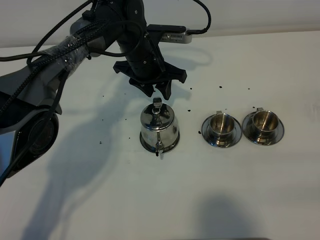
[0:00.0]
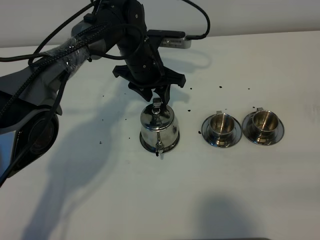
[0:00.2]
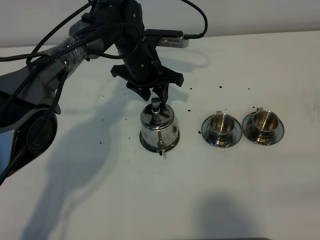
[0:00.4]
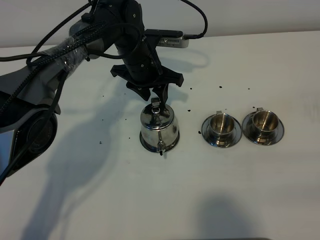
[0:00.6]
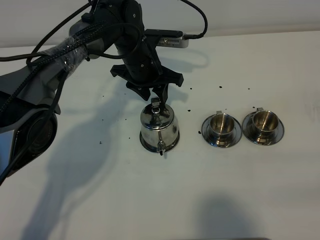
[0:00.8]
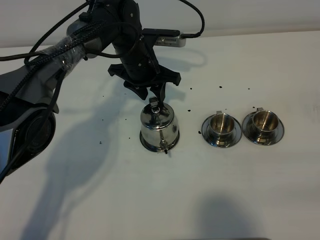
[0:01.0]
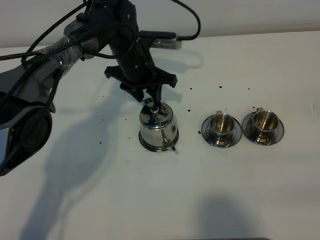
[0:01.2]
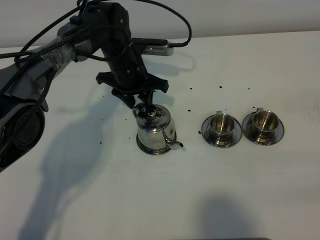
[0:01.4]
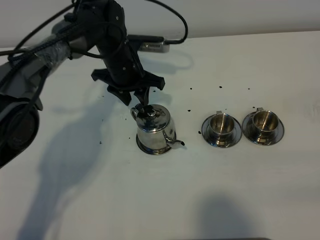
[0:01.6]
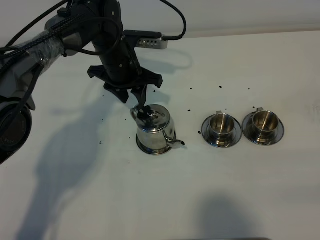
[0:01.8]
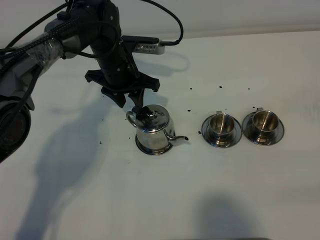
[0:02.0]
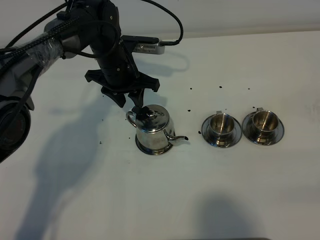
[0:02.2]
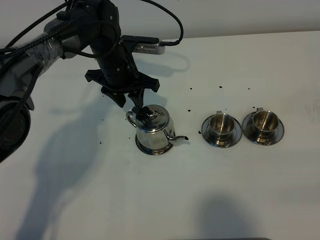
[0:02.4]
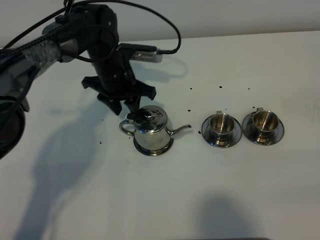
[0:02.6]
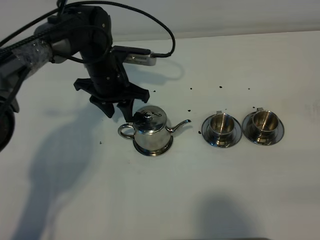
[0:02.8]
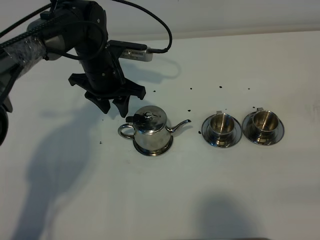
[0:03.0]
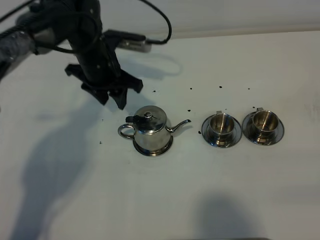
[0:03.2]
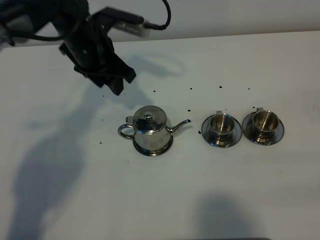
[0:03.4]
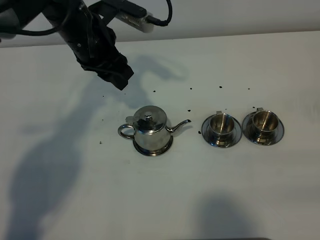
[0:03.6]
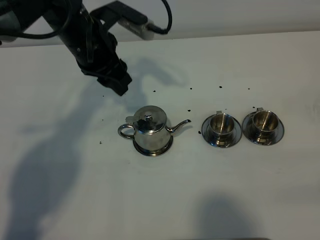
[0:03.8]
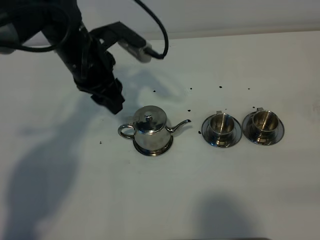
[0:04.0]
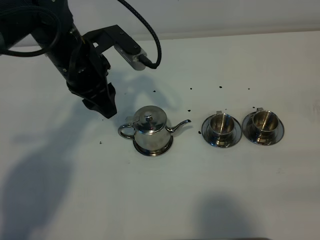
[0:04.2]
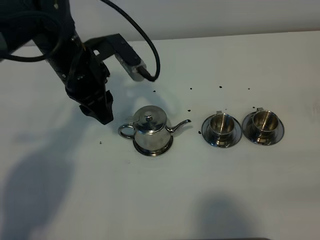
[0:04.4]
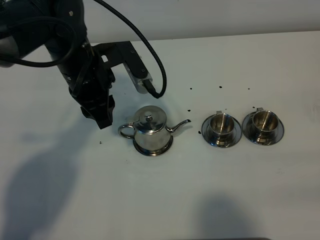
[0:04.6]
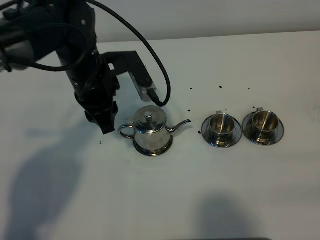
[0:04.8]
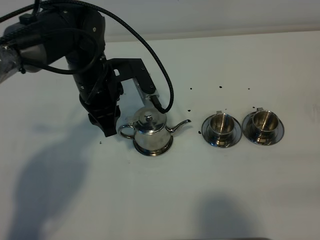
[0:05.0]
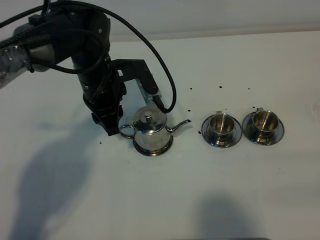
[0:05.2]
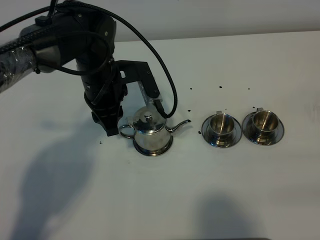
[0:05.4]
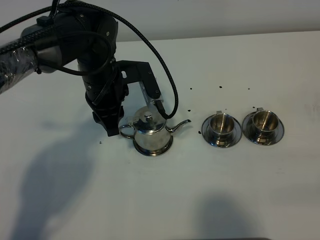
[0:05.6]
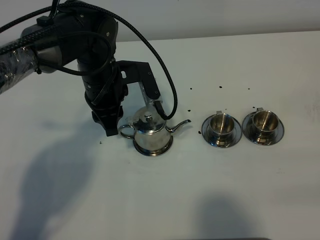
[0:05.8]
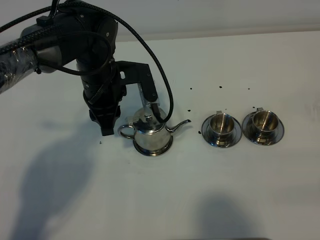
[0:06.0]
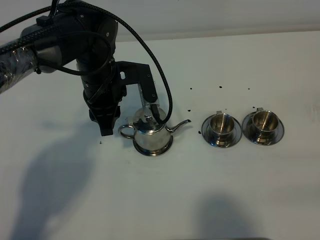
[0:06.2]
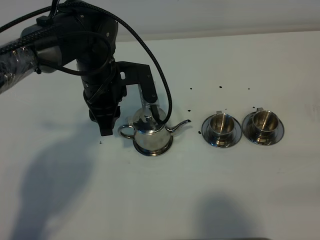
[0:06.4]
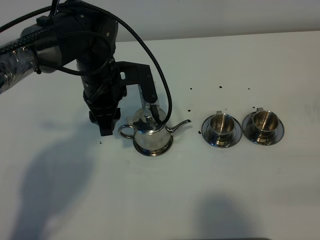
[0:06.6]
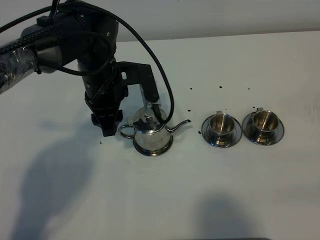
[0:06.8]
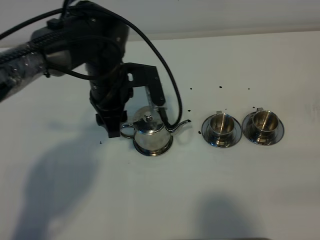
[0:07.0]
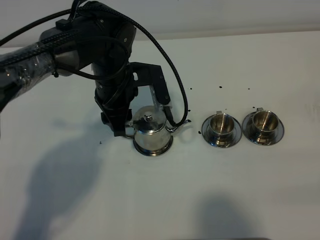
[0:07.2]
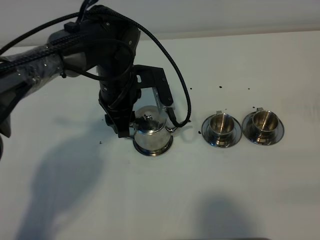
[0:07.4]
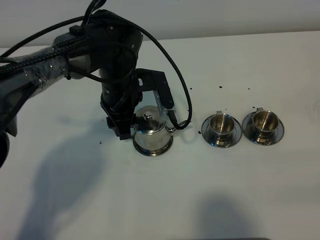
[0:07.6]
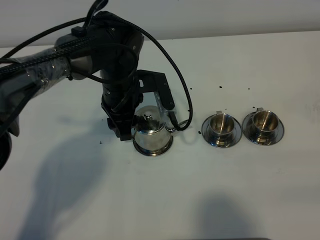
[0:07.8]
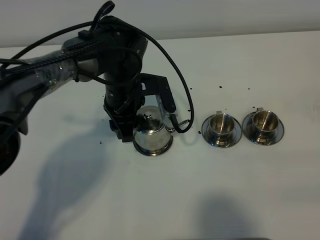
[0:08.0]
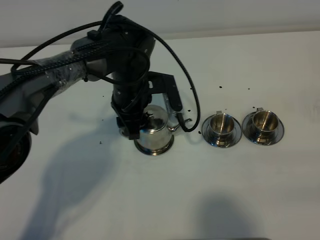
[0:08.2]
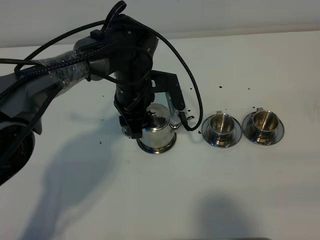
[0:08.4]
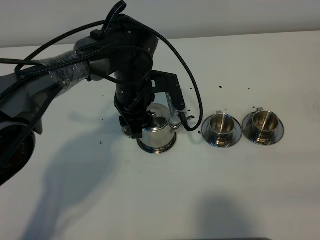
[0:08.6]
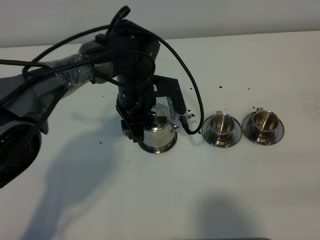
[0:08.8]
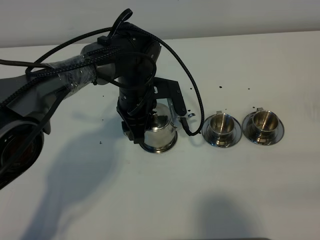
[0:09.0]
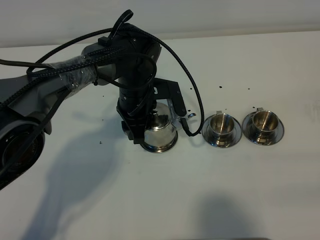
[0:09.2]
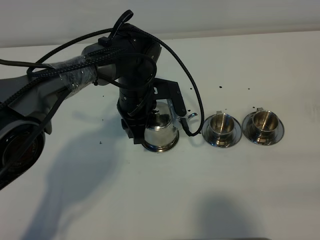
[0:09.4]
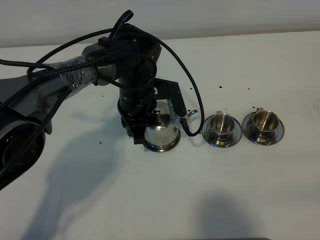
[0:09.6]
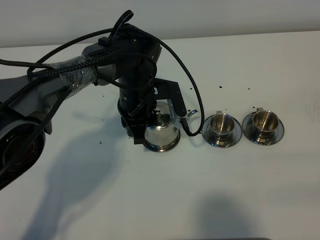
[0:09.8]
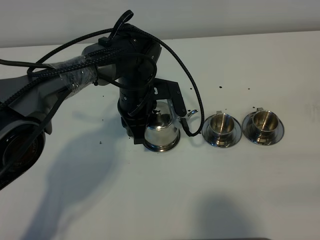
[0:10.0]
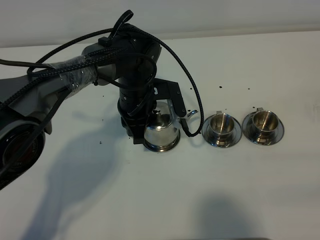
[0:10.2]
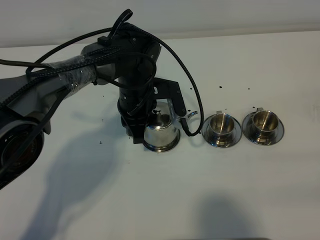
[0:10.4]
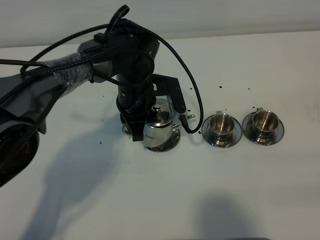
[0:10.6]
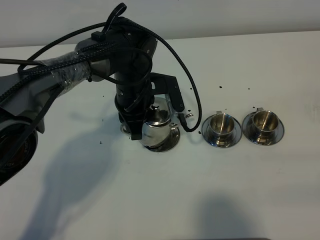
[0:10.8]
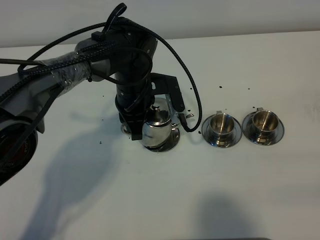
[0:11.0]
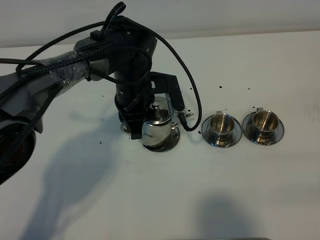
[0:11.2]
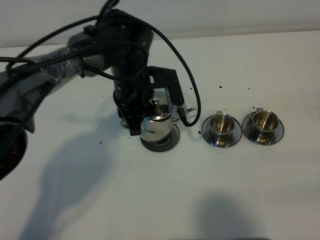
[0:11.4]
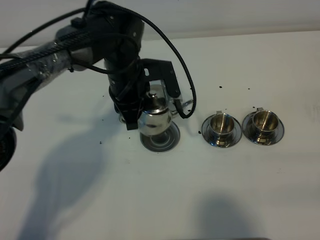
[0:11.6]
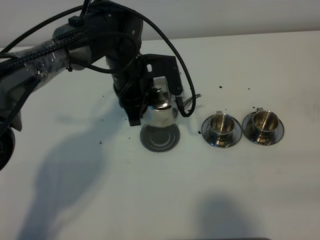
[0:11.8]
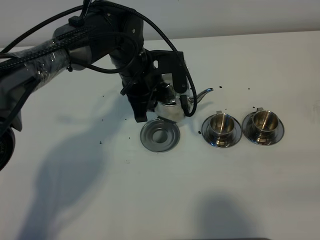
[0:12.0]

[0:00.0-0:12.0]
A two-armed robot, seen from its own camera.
Task of the whole recording: grasp the stainless steel teapot and pour the tea into the two stainless steel teacups one by one, put the stainless steel teapot back in its original place.
Step, 0:00.0 to 0:11.2: Pick up the teapot with the left gripper.
0:00.0 to 0:01.6: The grippers stay close to where they were, moving slightly.
0:01.6 to 0:03.0: There are only small adjustments of the grippers.
0:03.0 to 0:04.4: The left gripper heads upward and backward, covering some 10 cm.
0:04.4 to 0:06.0: The left gripper ends up approximately 5 cm from where it was.
0:06.0 to 0:07.6: The left gripper opens up.
0:07.6 to 0:09.0: The grippers make only small movements.
0:09.0 to 0:10.4: The left gripper closes up.
0:10.4 to 0:12.0: The left gripper changes place by some 5 cm.

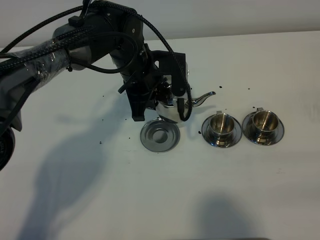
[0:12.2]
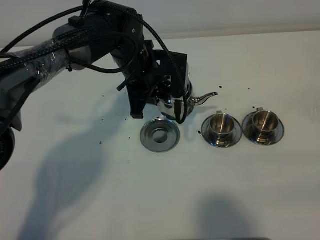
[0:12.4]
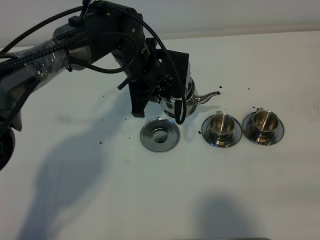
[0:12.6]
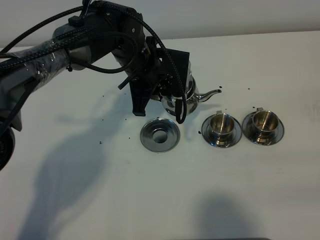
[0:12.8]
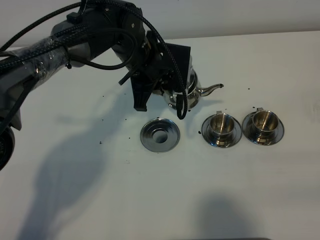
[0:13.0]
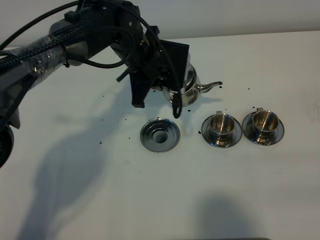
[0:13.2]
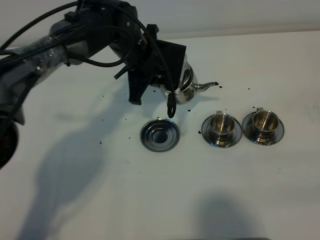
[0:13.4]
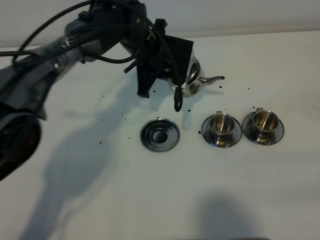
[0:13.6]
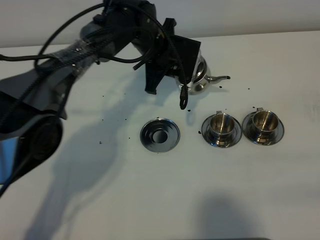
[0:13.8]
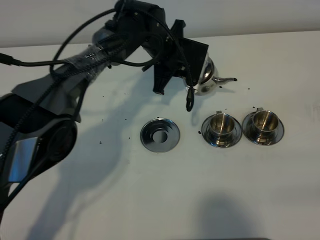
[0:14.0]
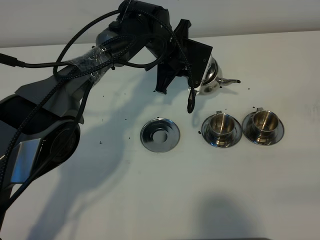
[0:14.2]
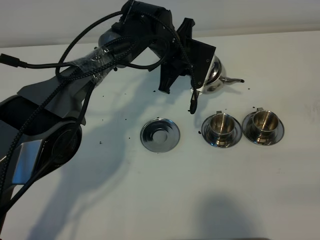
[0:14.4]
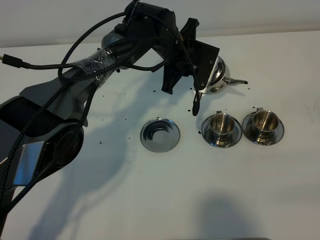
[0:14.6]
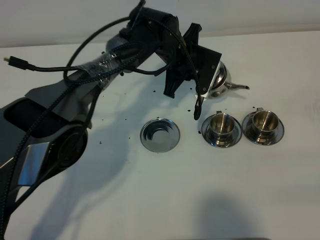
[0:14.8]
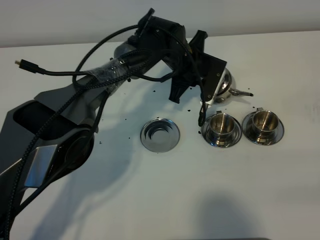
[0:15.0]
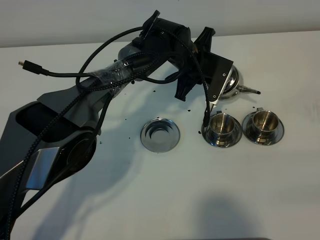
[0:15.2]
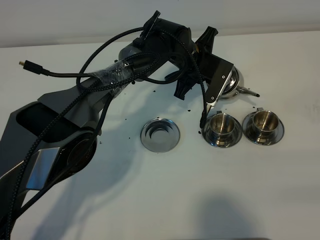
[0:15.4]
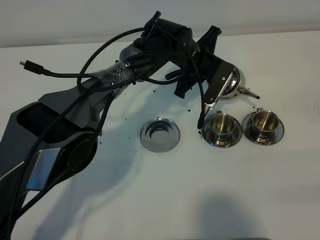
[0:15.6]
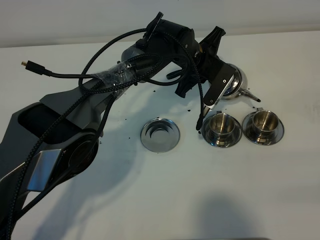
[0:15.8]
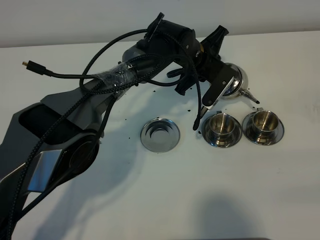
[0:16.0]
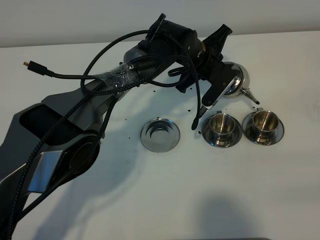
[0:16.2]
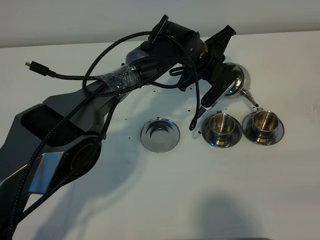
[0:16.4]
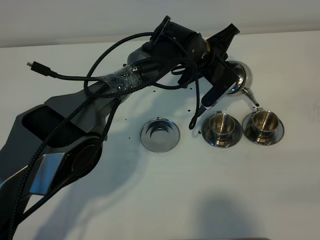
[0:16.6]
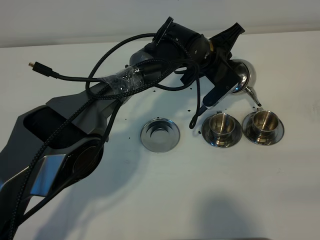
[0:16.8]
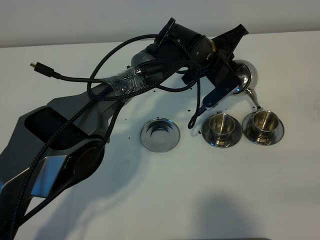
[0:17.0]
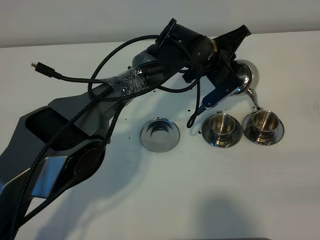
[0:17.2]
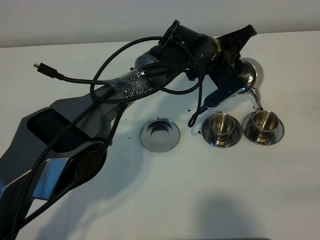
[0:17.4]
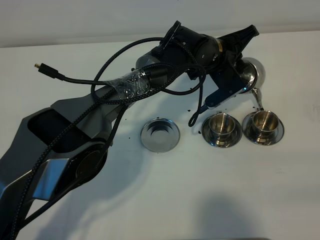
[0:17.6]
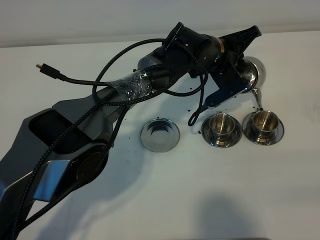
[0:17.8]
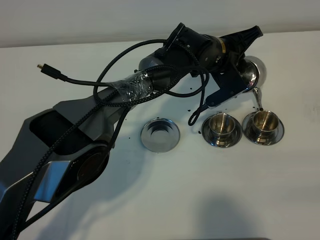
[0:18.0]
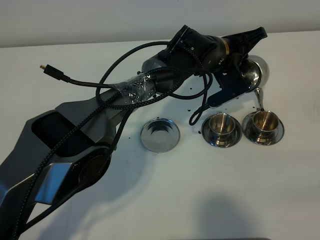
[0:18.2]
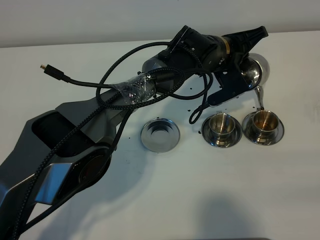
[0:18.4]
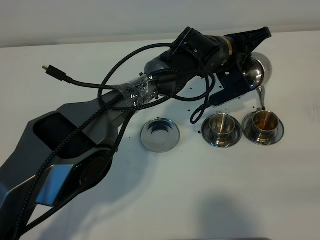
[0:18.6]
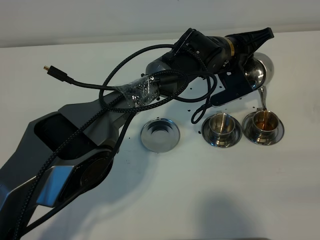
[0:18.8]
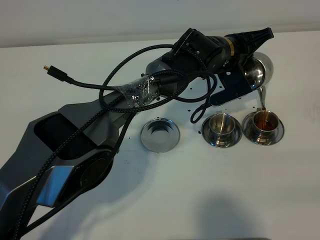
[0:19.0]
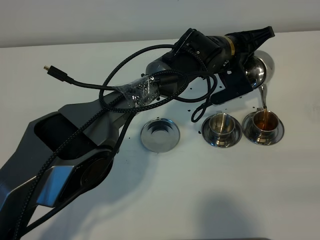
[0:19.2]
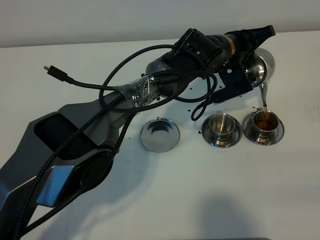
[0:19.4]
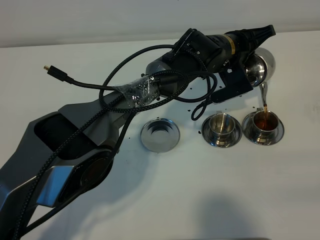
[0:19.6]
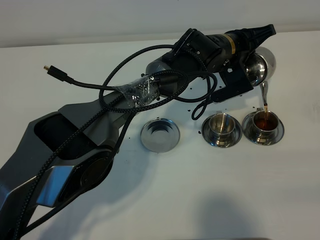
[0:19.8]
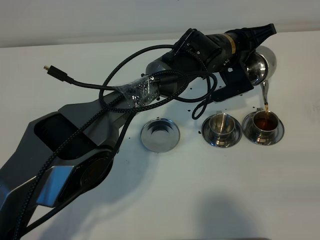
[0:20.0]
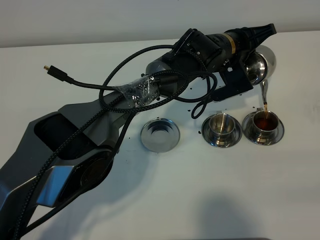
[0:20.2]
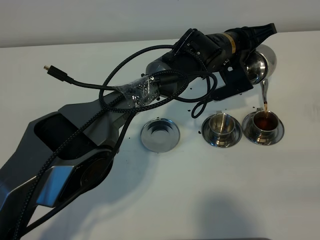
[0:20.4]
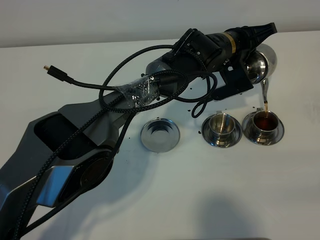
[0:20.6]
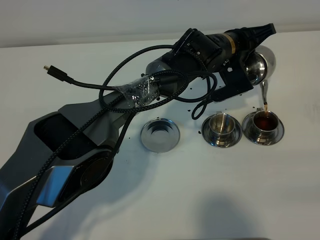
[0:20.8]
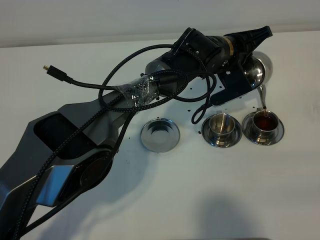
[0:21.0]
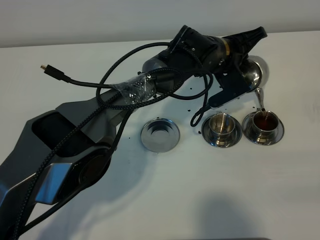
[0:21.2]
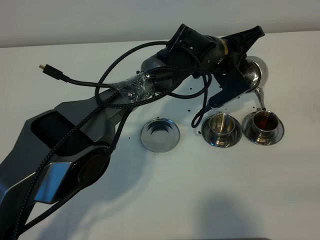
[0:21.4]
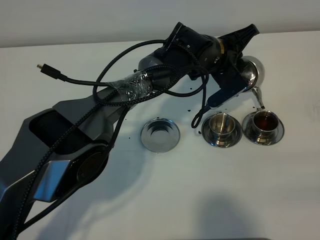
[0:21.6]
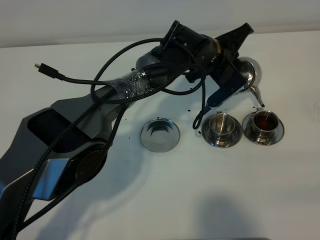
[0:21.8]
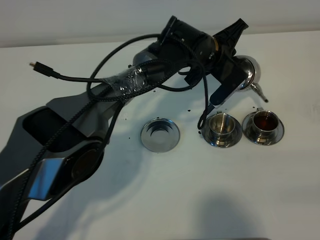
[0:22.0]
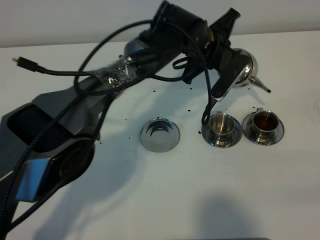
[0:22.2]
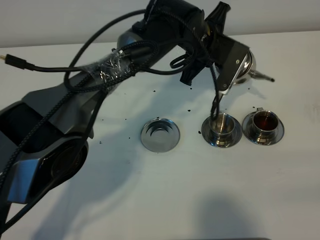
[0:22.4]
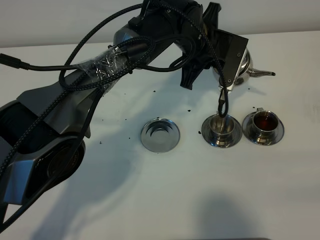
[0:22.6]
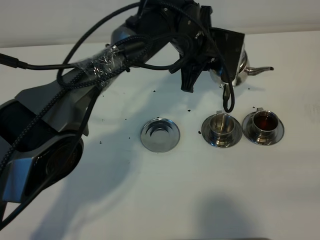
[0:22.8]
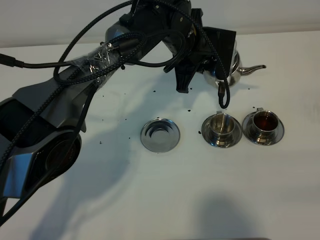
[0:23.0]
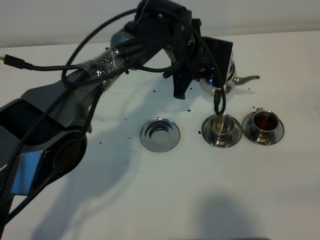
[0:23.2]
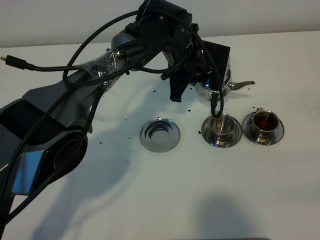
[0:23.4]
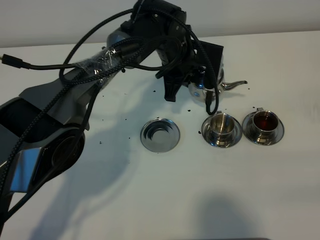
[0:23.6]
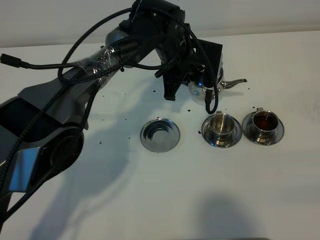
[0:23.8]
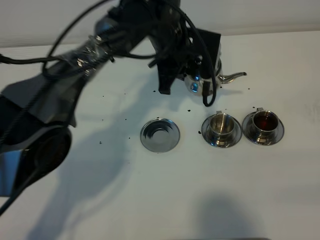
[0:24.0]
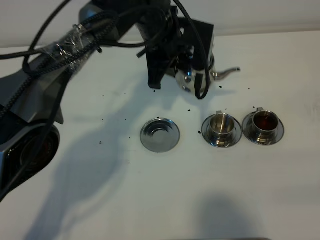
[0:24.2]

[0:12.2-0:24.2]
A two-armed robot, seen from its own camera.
Task of the whole recording: grasp the stainless steel teapot and pour the tea into the two stainless steel teacups one by one, put the stainless steel teapot back in its original place.
0:12.2 to 0:13.8: The left gripper travels forward by approximately 5 cm.
0:13.8 to 0:15.2: The left gripper goes approximately 5 cm to the right.
0:18.2 to 0:21.2: The grippers make only small movements.
0:21.2 to 0:22.6: The left gripper shifts some 5 cm upward.
0:22.6 to 0:24.2: The left gripper shifts some 5 cm to the left.
